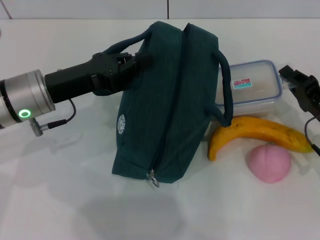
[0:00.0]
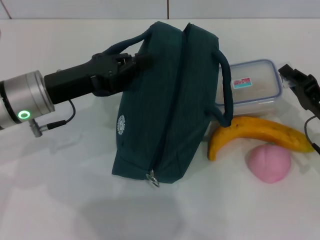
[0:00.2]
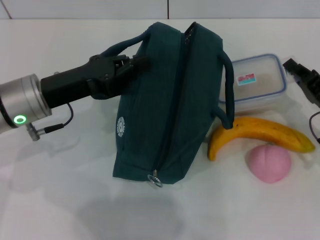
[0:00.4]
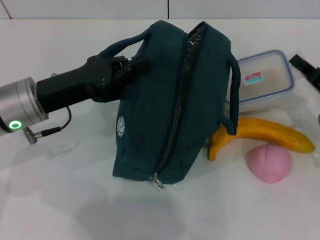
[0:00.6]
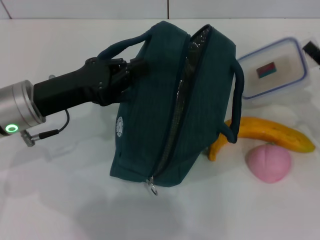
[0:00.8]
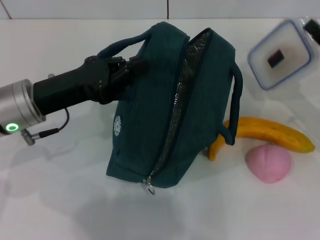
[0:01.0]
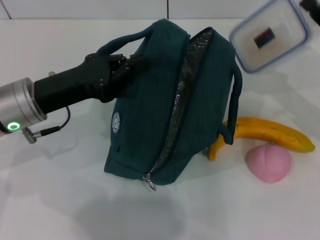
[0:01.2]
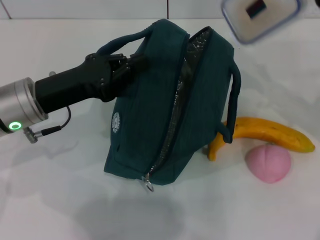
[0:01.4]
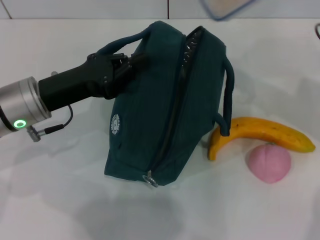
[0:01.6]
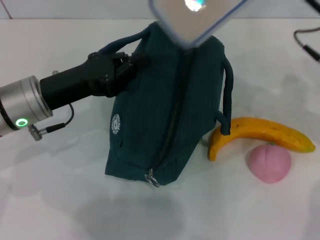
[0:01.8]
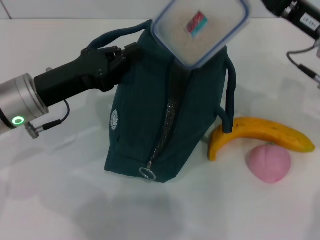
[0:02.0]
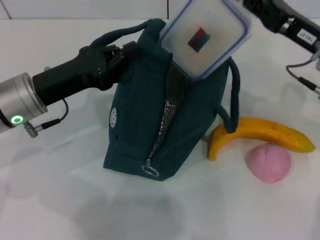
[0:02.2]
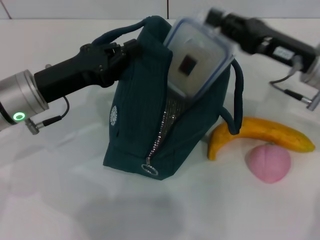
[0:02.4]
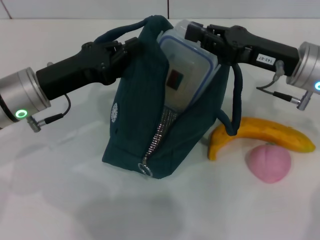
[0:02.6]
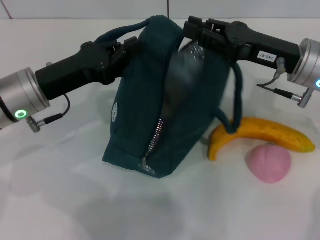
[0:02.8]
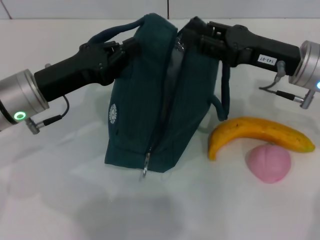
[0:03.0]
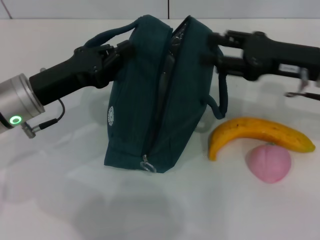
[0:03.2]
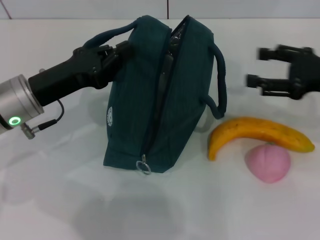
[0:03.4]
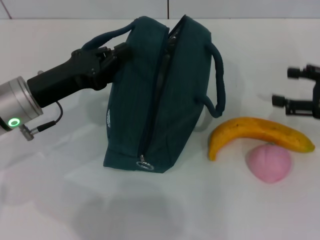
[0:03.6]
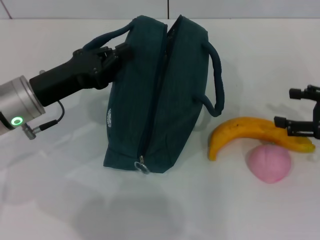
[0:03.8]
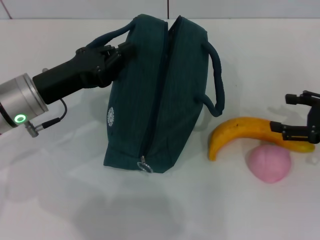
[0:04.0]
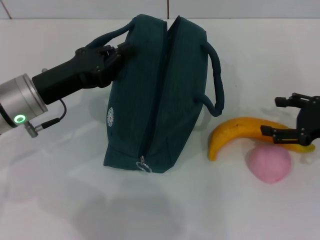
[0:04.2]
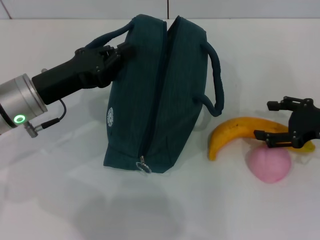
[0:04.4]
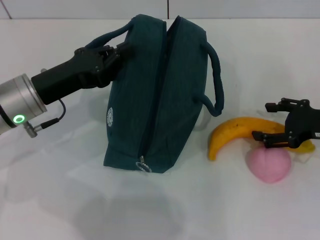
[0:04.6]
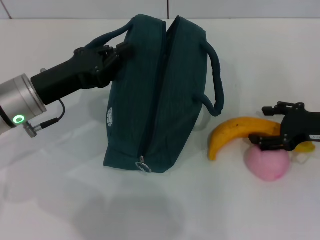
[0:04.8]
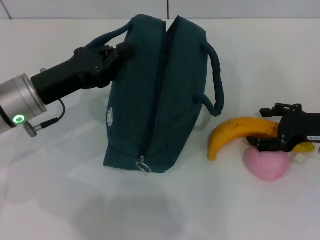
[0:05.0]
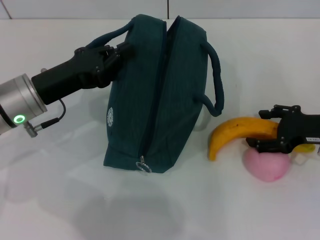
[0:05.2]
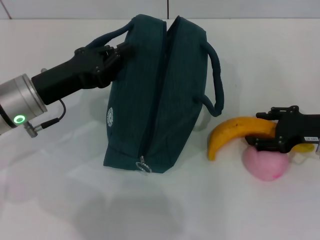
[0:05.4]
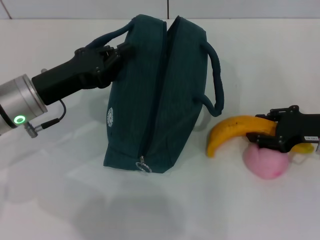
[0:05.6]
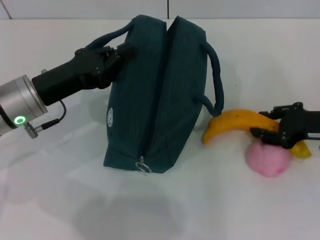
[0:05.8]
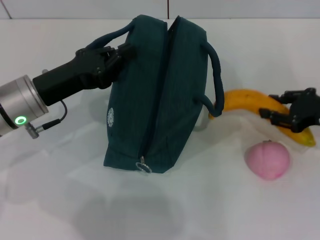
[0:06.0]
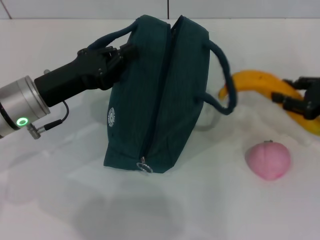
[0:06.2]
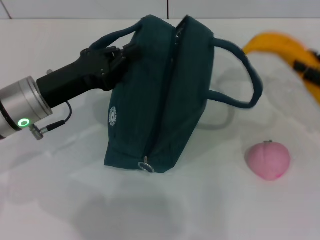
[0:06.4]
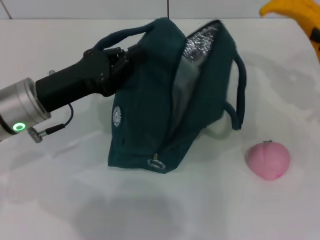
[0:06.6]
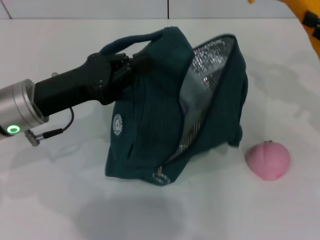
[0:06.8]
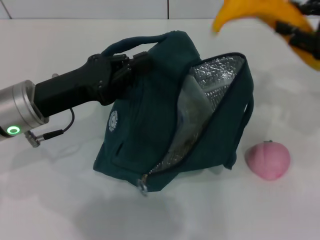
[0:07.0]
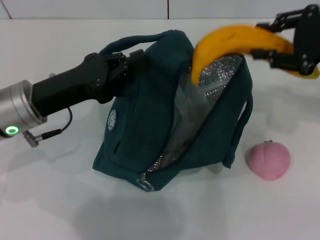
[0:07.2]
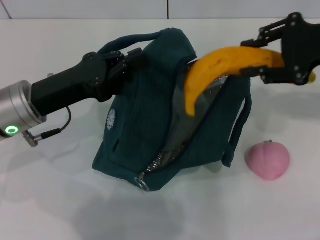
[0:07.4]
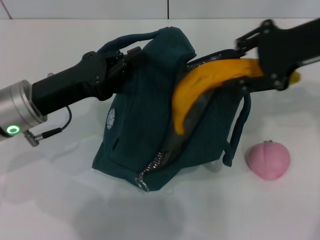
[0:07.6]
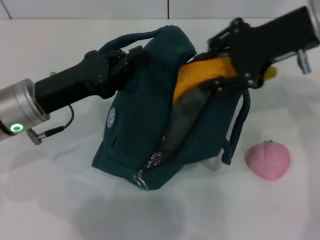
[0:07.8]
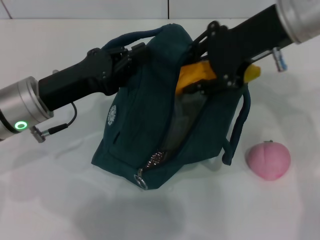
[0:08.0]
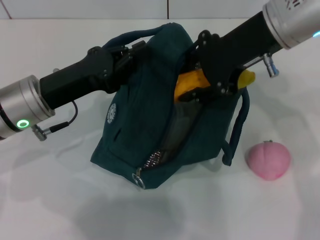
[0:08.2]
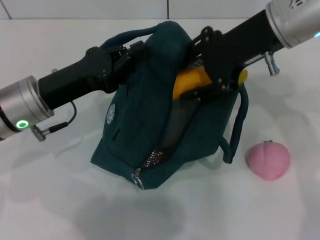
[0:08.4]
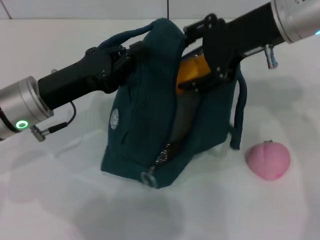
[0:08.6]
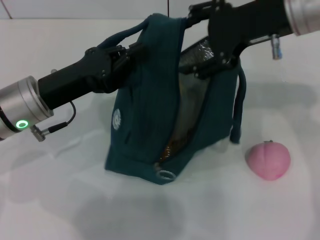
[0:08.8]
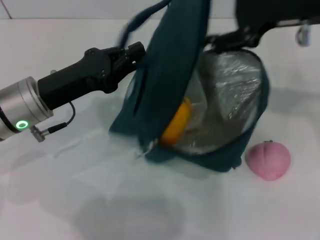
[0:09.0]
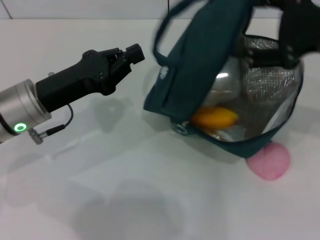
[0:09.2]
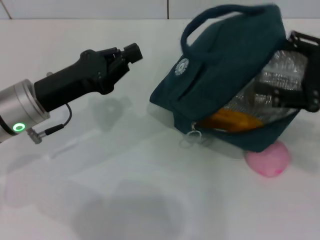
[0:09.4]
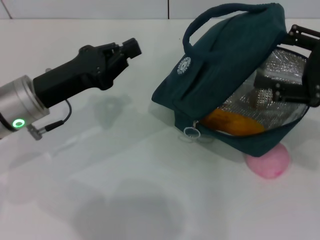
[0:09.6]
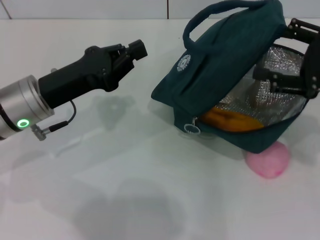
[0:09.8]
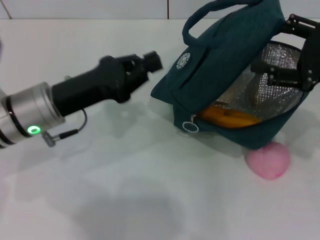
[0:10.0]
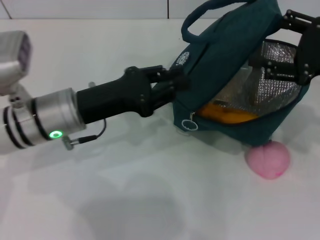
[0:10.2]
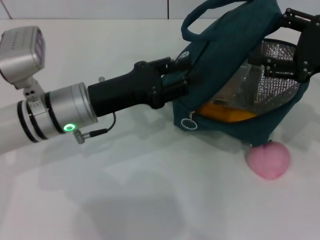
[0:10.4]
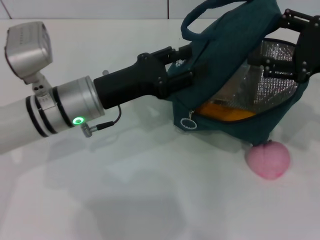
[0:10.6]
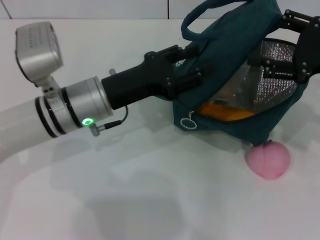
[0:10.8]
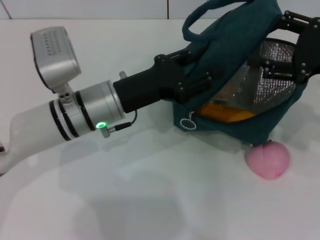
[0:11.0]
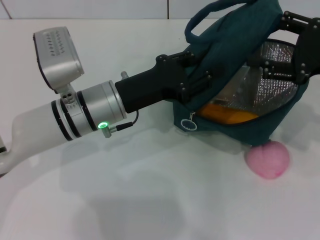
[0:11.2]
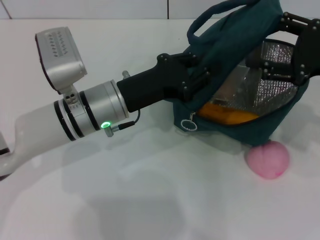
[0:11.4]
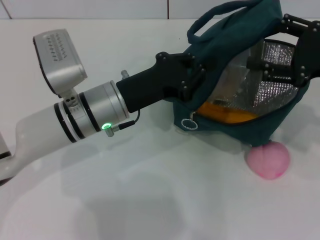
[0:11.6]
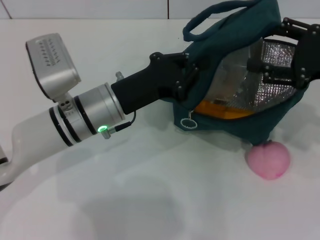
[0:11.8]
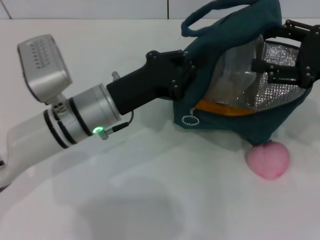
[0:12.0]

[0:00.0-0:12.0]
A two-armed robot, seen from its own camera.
Step, 0:00.2 to 0:02.8: Place the lunch box into the lunch bag with your right hand.
Step, 0:03.0 to 0:05.4: Take the banana with your right hand.
Step, 0:05.6 to 0:08.4: Put the banana into the lunch bag with your right hand.
0:00.0 to 0:01.6: The right gripper heads upward and forward, covering some 15 cm.
0:01.6 to 0:03.0: The right gripper moves approximately 5 cm.
0:03.0 to 0:04.4: The right gripper goes some 10 cm to the right and downward, and opens.
0:04.4 to 0:06.0: The right gripper closes up.
0:06.0 to 0:07.6: The right gripper is displaced upward and to the left by roughly 20 cm.
0:07.6 to 0:09.0: The right gripper travels to the left and back again, roughly 10 cm each way, and opens.
0:09.0 to 0:10.4: The left gripper goes roughly 5 cm to the right; the right gripper shifts approximately 10 cm downward and to the right.
0:10.4 to 0:12.0: The left gripper opens and closes again.

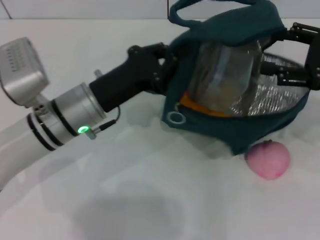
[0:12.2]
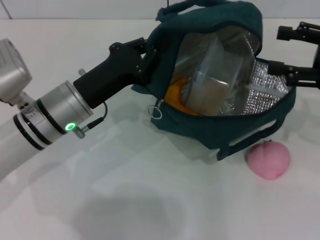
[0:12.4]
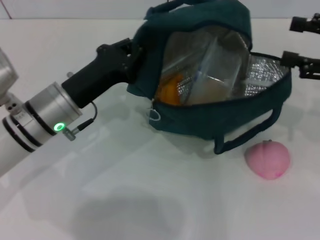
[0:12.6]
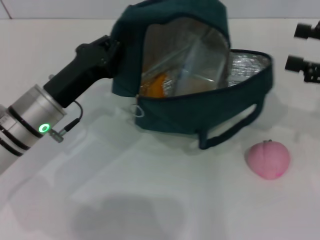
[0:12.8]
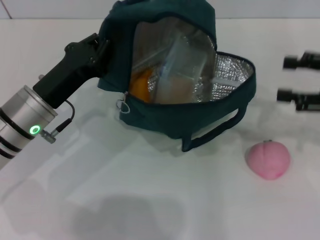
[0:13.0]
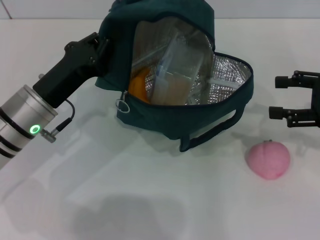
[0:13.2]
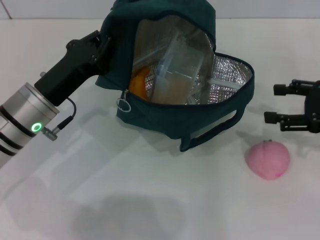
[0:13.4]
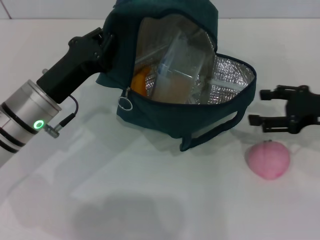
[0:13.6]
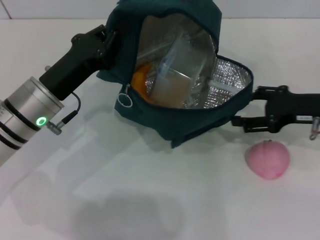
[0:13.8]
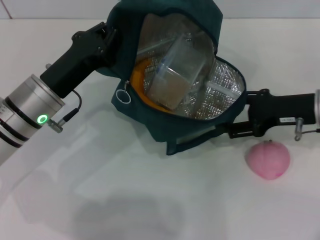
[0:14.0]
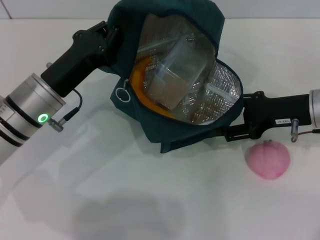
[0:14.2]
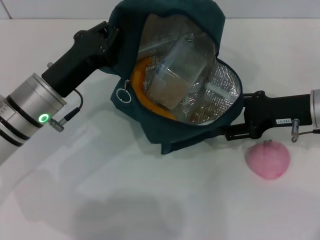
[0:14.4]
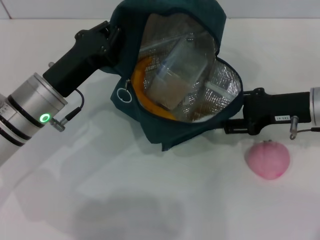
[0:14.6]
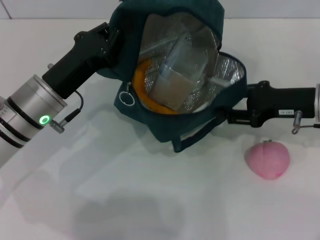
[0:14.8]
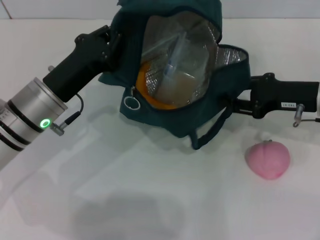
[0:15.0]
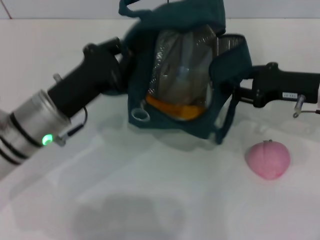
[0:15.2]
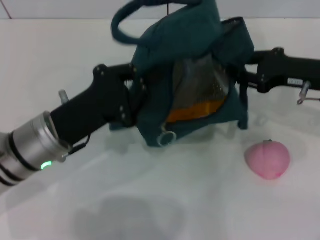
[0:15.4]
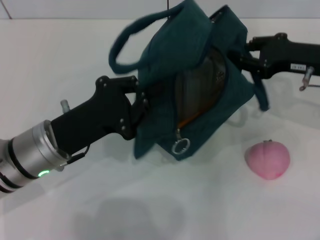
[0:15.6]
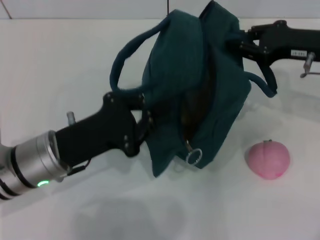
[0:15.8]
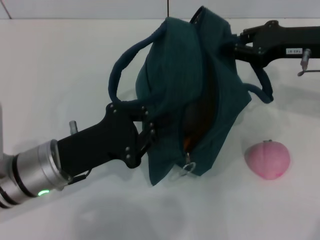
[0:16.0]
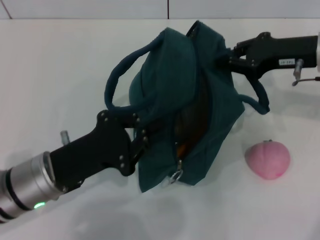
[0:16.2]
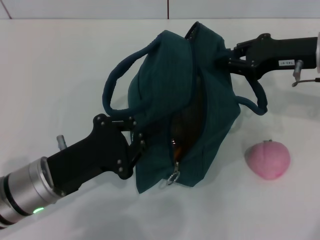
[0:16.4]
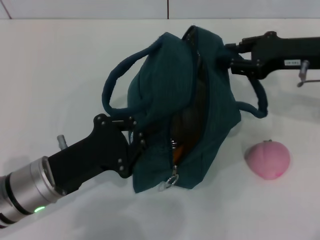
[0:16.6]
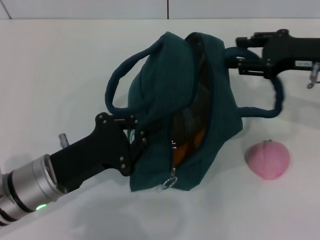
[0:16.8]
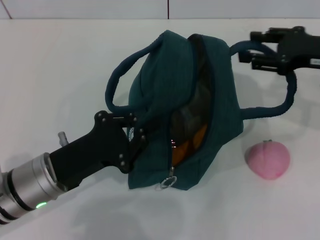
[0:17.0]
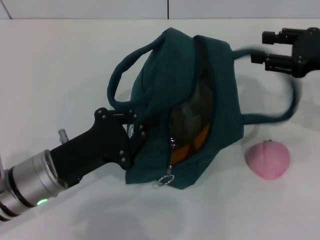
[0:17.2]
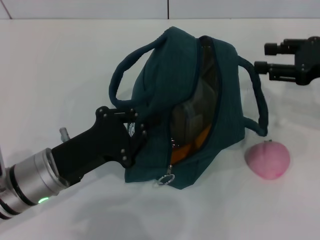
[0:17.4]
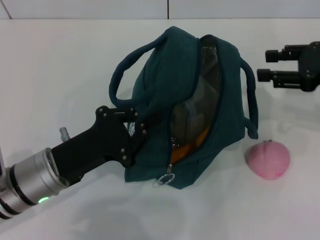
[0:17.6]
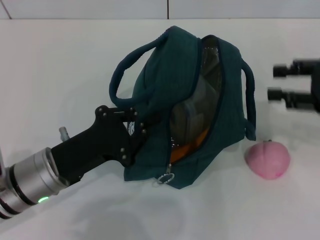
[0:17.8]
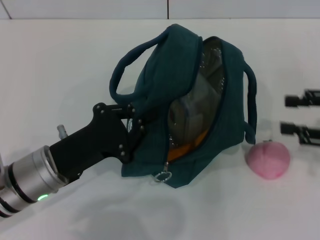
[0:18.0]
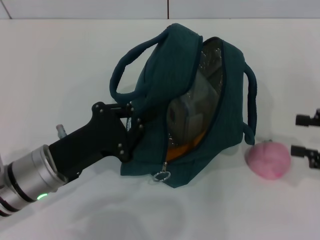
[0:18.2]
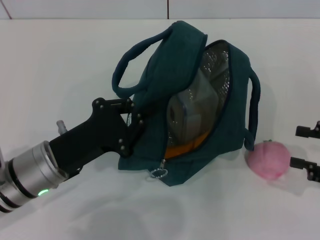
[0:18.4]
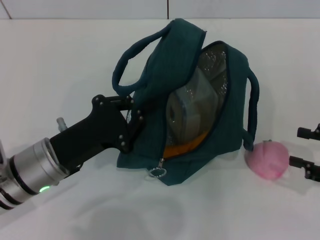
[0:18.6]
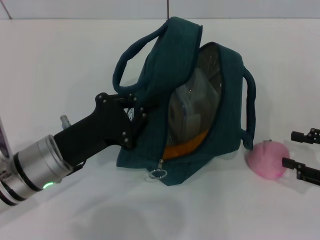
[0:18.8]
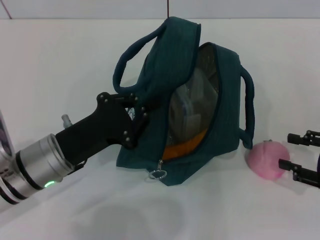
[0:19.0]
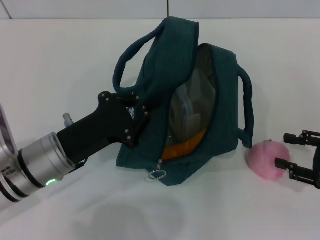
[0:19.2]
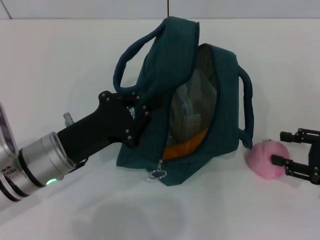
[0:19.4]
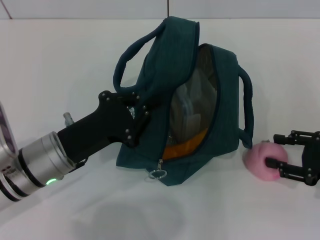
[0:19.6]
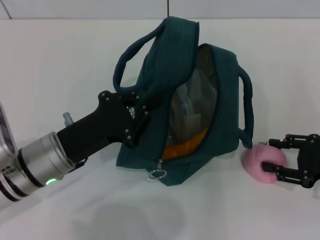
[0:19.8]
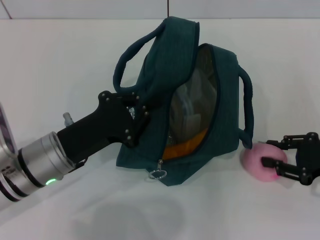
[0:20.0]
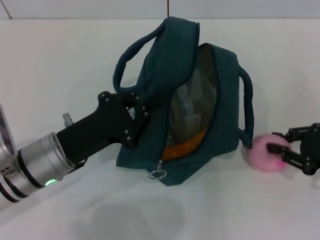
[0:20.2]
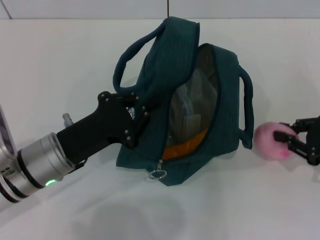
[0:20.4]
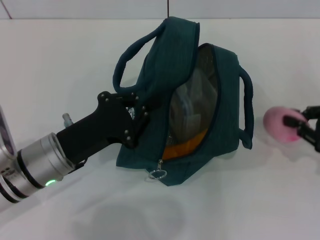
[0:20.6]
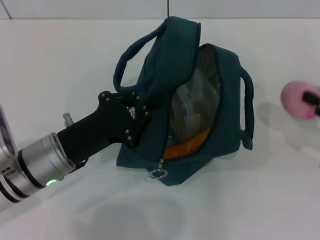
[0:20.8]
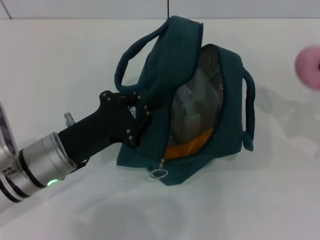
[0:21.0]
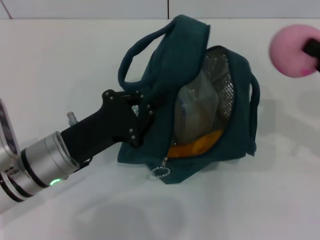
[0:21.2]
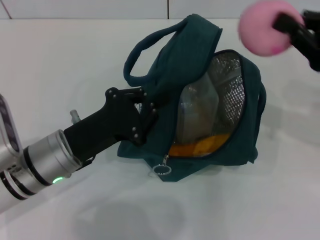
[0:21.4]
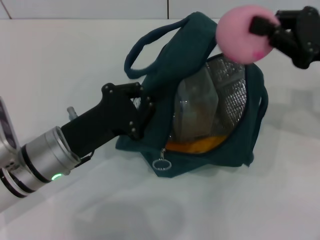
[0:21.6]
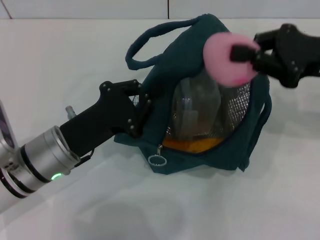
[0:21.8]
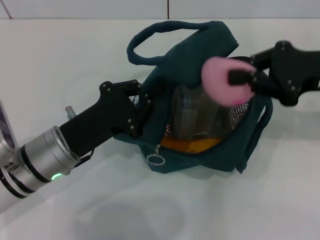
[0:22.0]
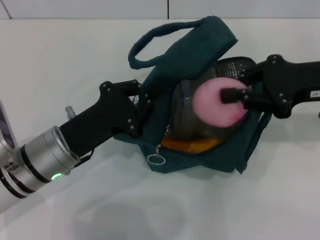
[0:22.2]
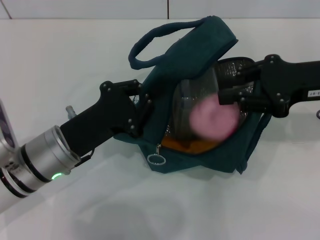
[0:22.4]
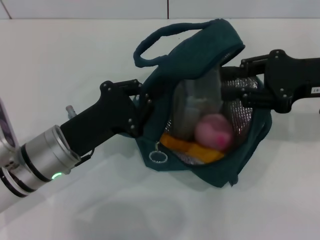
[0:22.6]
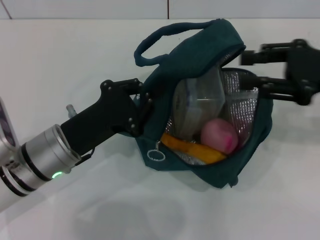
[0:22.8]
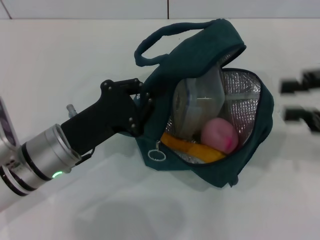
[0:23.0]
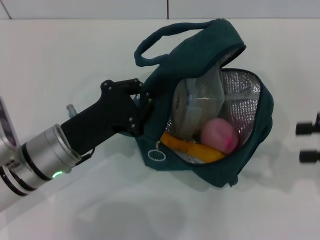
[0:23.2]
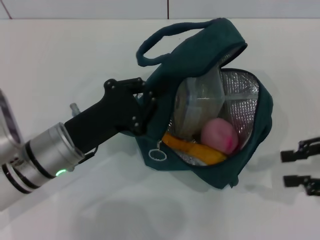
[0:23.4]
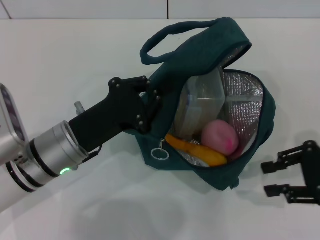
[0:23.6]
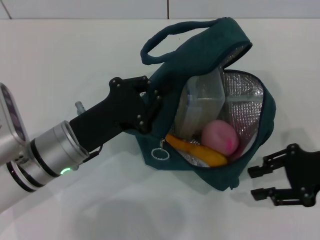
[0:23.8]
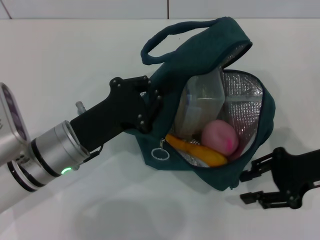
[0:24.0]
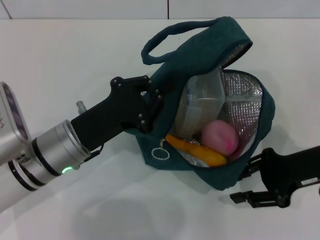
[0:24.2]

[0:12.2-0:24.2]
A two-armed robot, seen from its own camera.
Step, 0:12.2 to 0:20.0: Grab the peach with your right hand.
0:12.2 to 0:13.8: The right gripper is displaced downward by approximately 5 cm, while the left gripper travels to the left by about 5 cm.
0:13.8 to 0:15.2: The right gripper closes up.
0:15.2 to 0:16.6: The left gripper shifts approximately 5 cm backward. The right gripper shifts approximately 5 cm upward.
0:16.6 to 0:18.2: The right gripper shifts approximately 15 cm backward and to the right, and opens.
0:18.2 to 0:19.8: The right gripper moves downward, roughly 5 cm.
0:19.8 to 0:21.2: The right gripper travels upward by some 5 cm, and closes its fingers.
0:21.2 to 0:22.6: The right gripper heads to the left and upward, covering approximately 10 cm.
0:22.6 to 0:24.2: The right gripper travels downward by about 10 cm.
